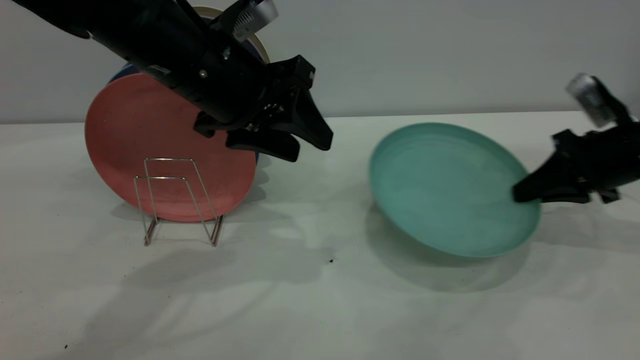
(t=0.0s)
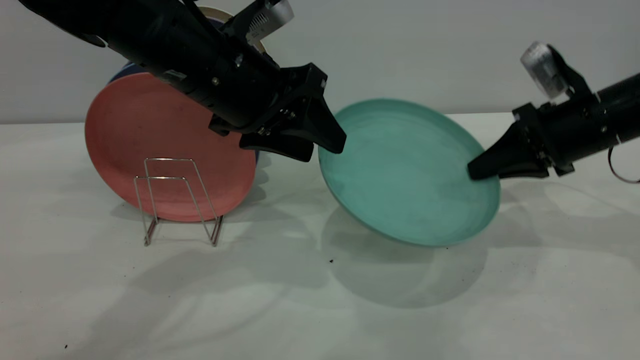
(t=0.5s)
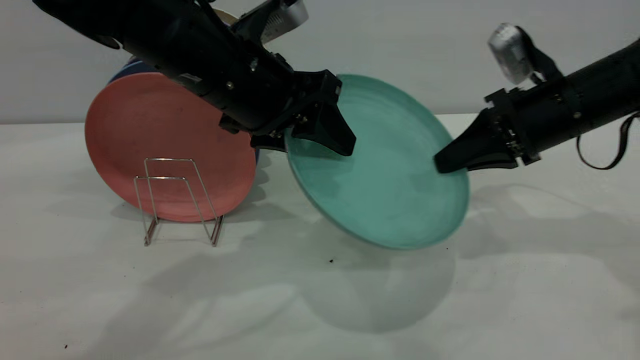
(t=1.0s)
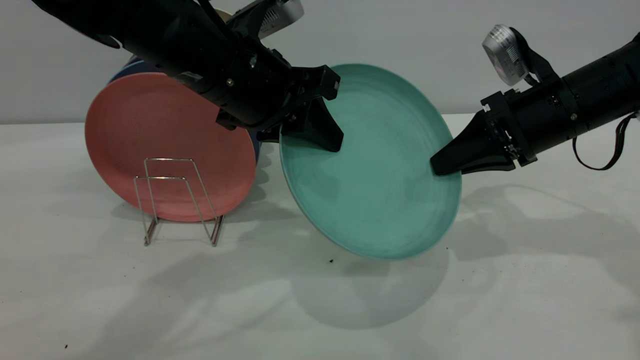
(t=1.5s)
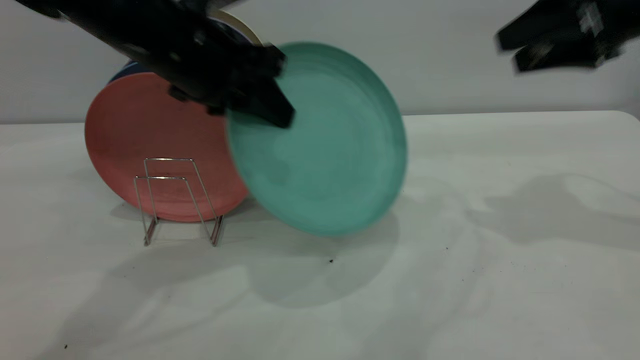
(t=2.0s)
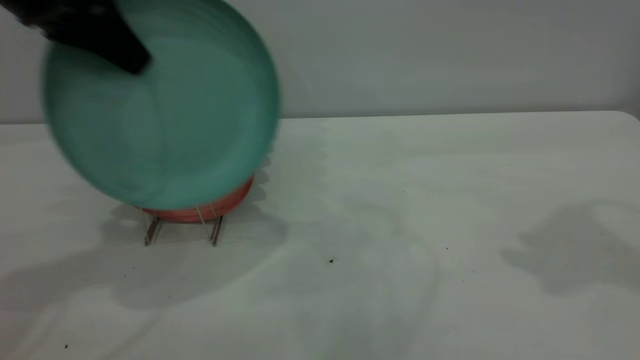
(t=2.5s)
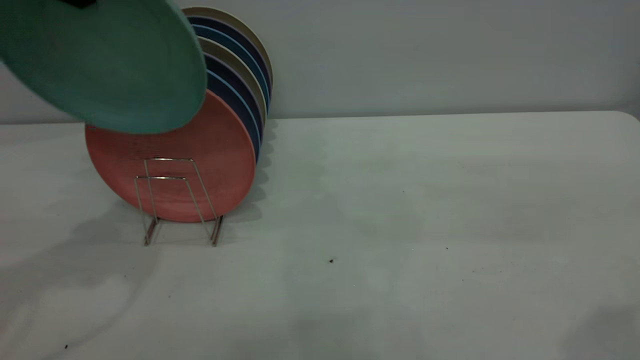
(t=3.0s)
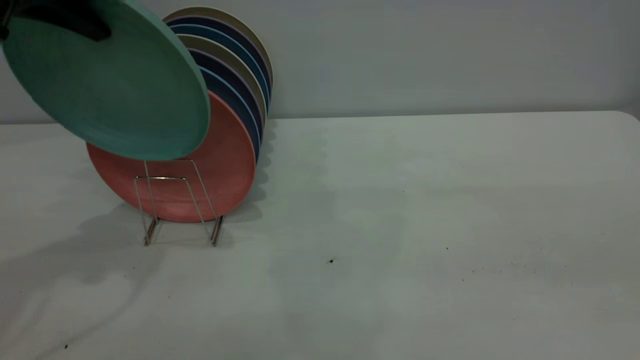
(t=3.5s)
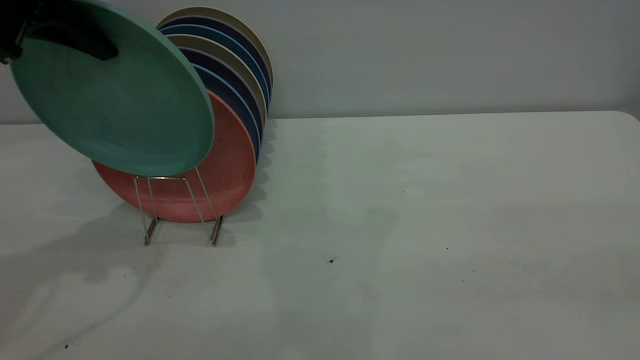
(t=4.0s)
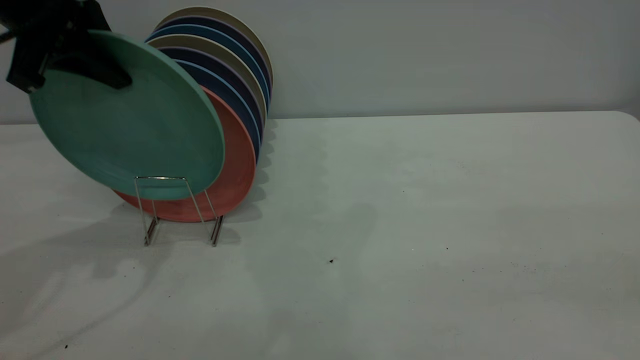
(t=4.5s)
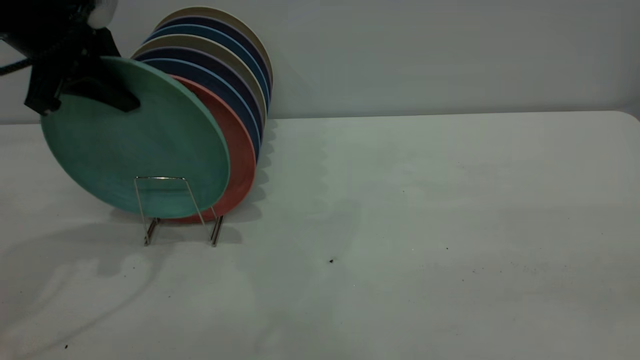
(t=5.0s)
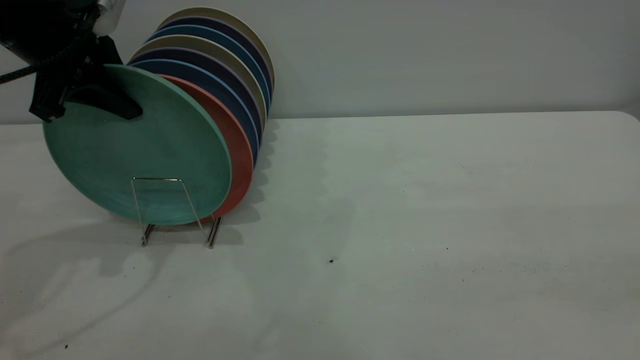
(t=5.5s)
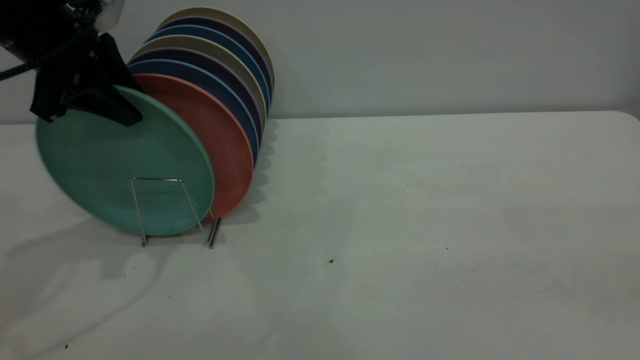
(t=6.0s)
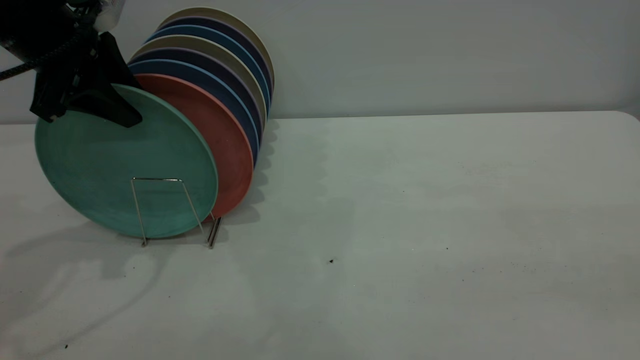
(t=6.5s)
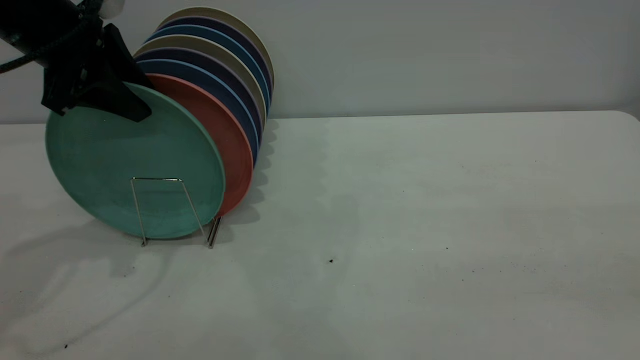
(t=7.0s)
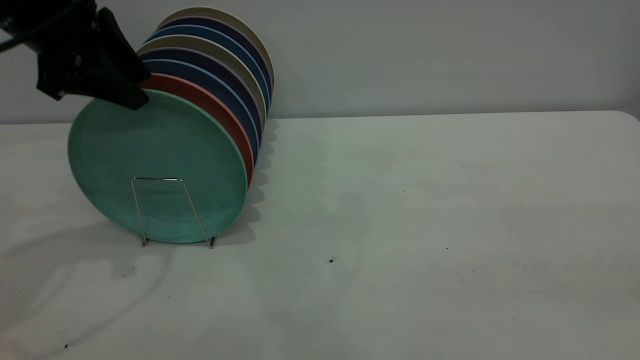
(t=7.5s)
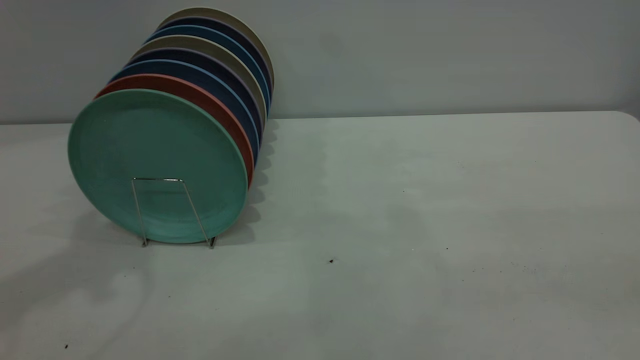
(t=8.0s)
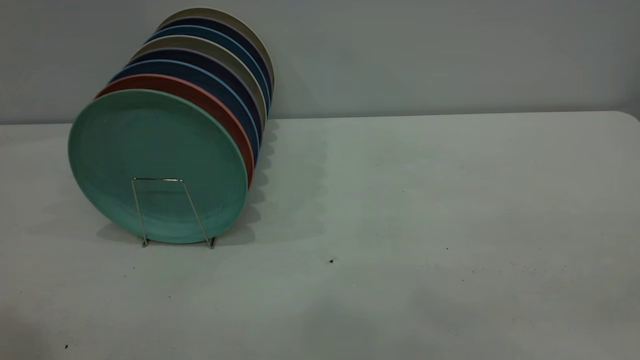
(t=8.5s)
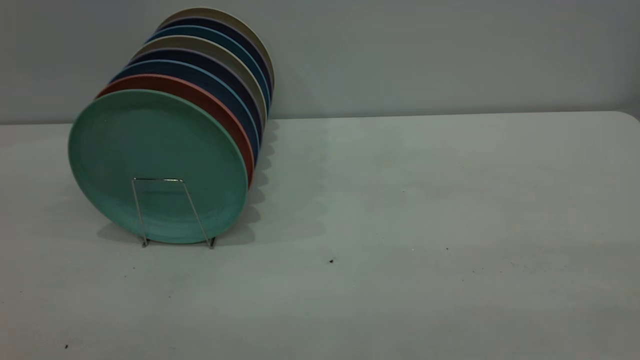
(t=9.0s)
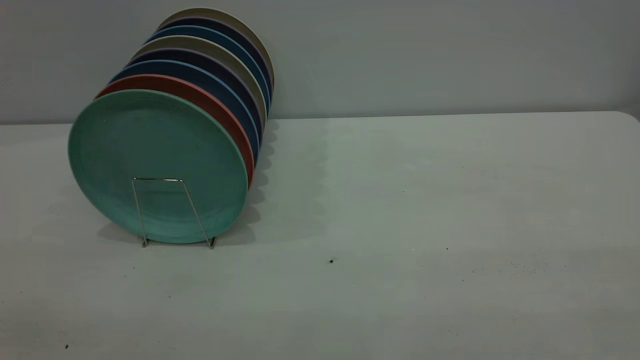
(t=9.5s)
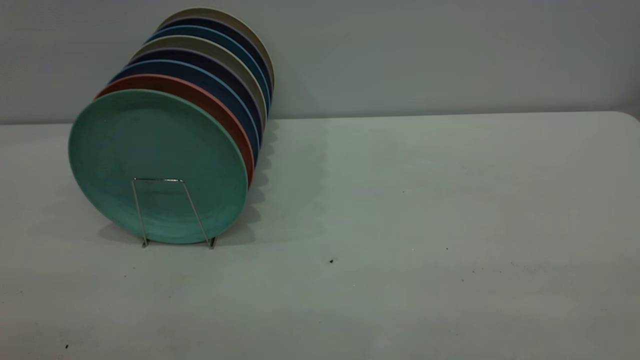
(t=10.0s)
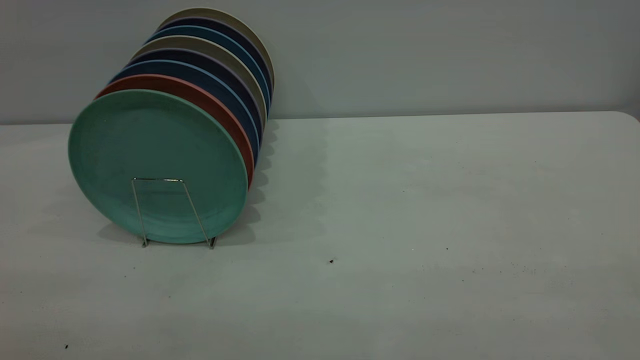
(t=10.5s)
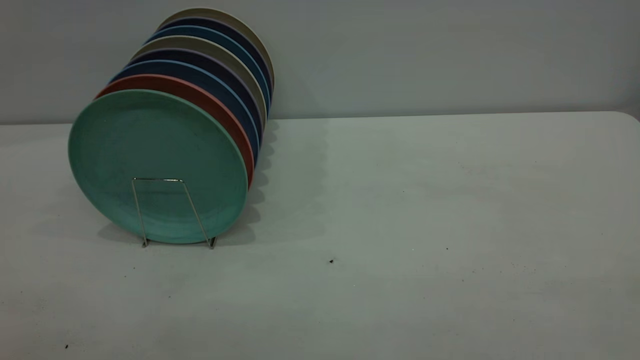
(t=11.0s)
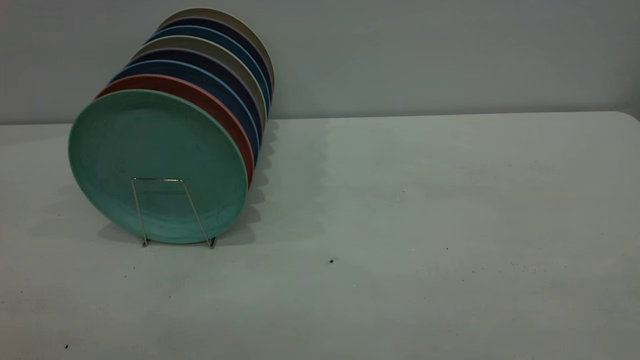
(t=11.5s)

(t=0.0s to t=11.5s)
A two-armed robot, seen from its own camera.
Task of the whole recording: the right gripper grasp the green plate, the right gripper pass the green plate to the left gripper, and the left gripper place the green plate on the plate rack.
Step, t=0.0s - t=2.0s: Pass the plate from the right gripper to the left gripper.
Step, t=2.5s - t=7.5s: Place the plate on the shelf.
t=0.0s - t=2.0s: The right gripper moves upward, about 15 cm, and opens its fingers, while the left gripper closes.
t=2.0s - t=4.0s: The right gripper heads backward, covering some 35 cm. Meanwhile the left gripper heads to the left and upward, covering roughly 15 cm.
t=4.0s - t=6.0s: The left gripper heads downward, covering some 5 cm, and opens.
t=6.0s - t=7.5s: The left gripper opens its fingers.
t=7.5s - t=9.5s: The left gripper goes roughly 35 cm backward.

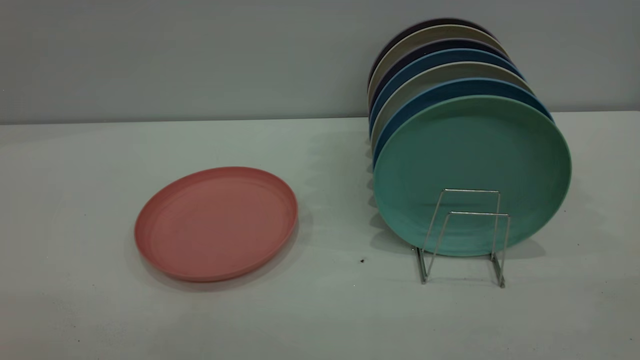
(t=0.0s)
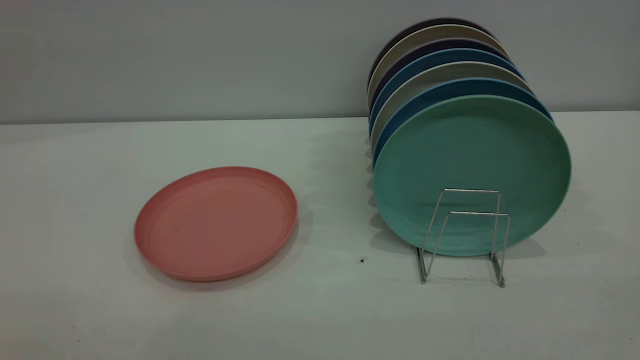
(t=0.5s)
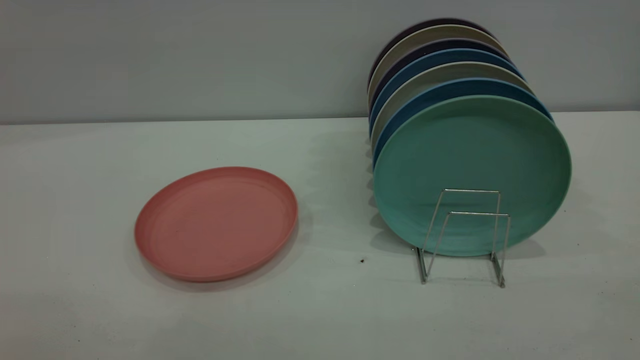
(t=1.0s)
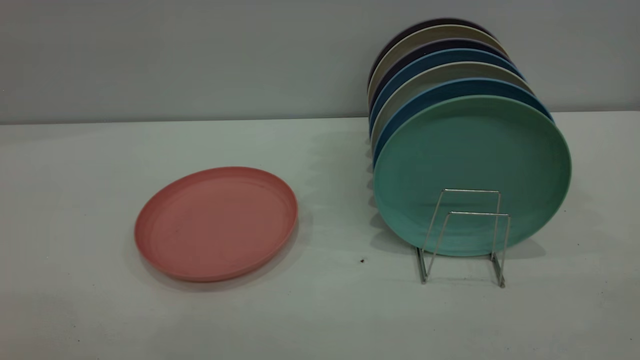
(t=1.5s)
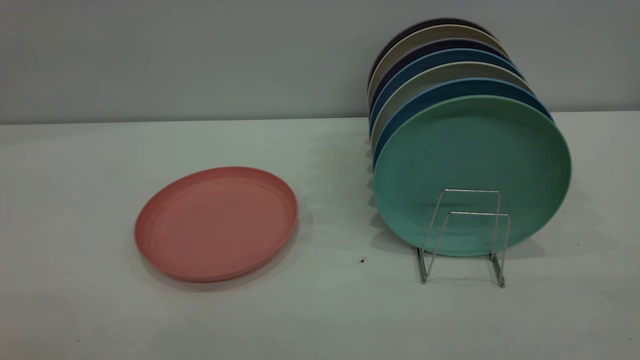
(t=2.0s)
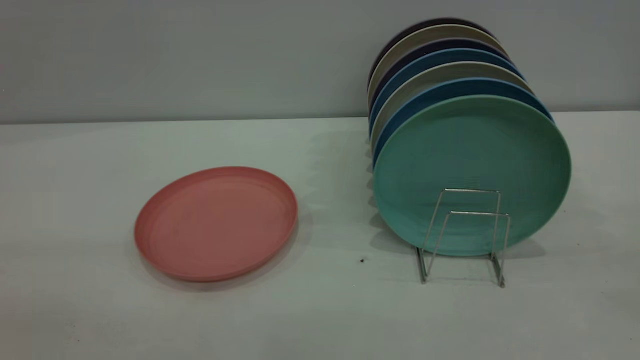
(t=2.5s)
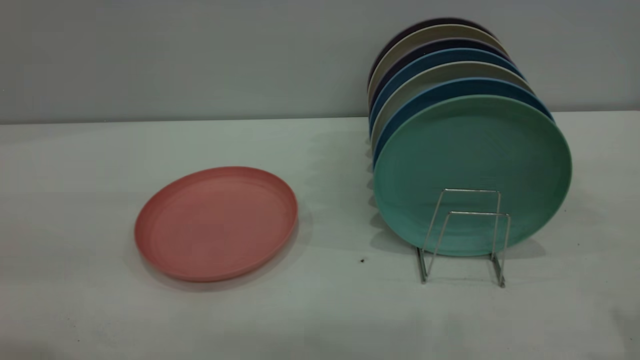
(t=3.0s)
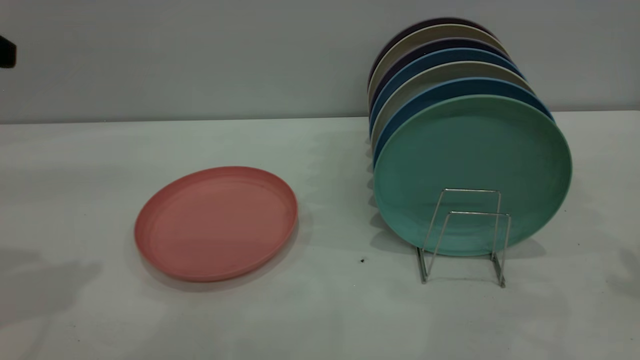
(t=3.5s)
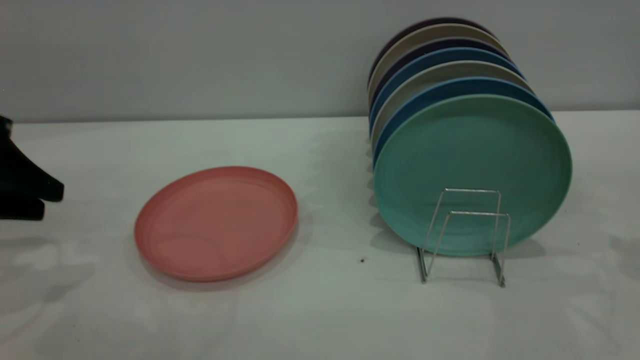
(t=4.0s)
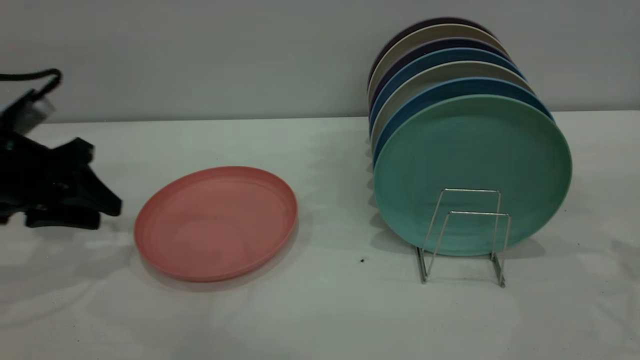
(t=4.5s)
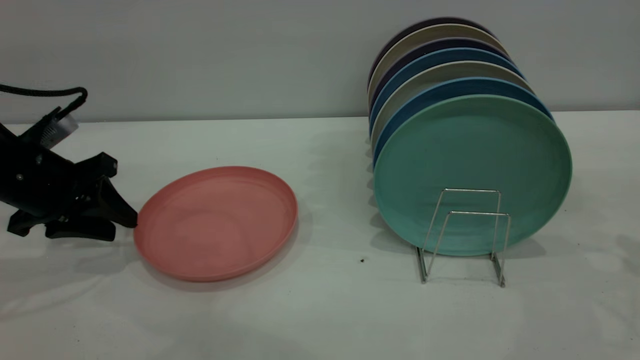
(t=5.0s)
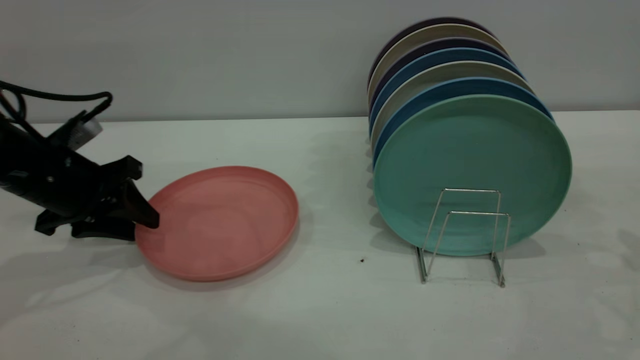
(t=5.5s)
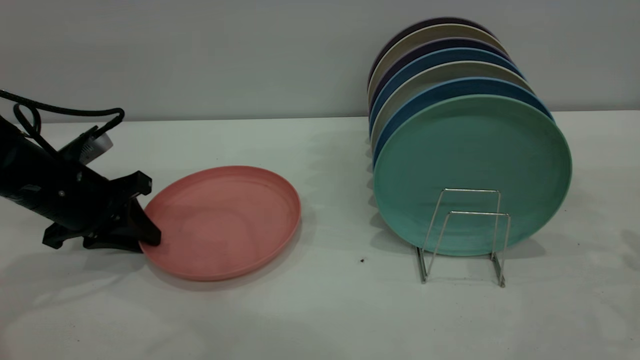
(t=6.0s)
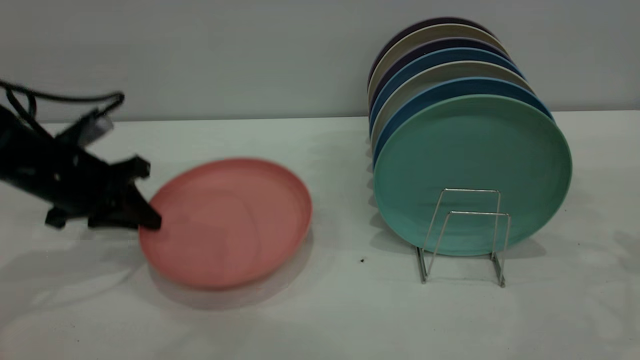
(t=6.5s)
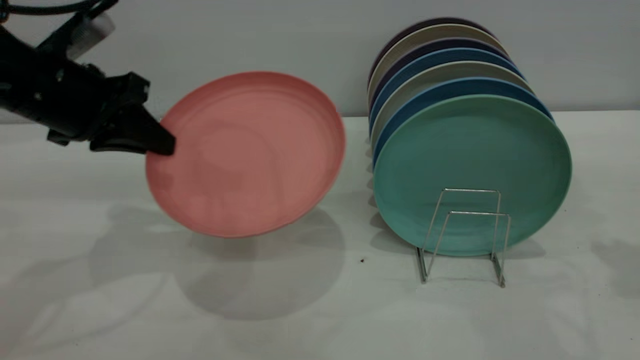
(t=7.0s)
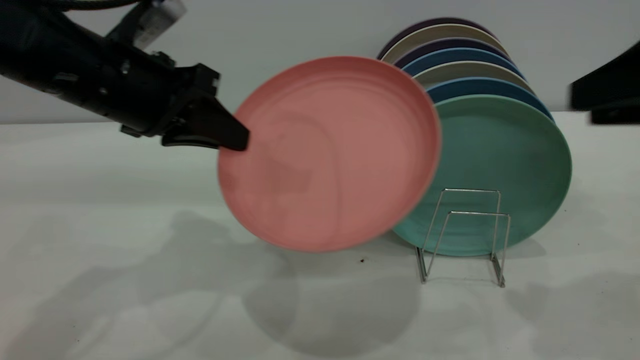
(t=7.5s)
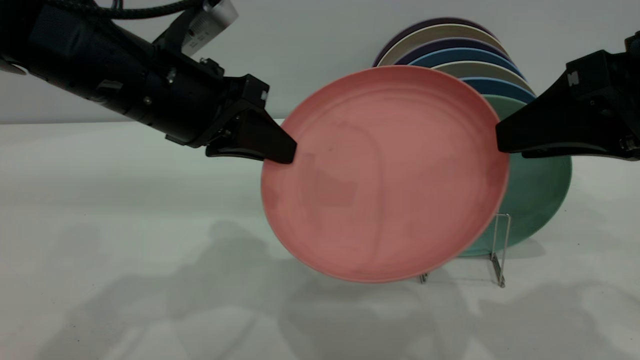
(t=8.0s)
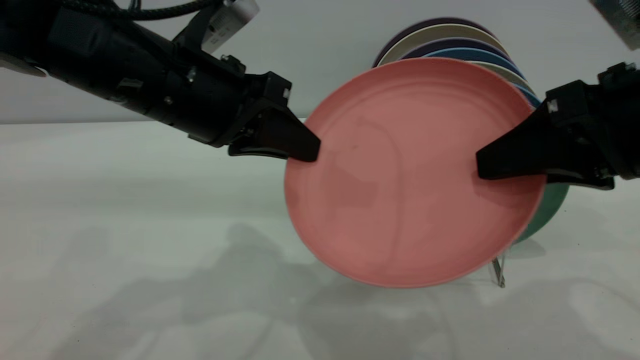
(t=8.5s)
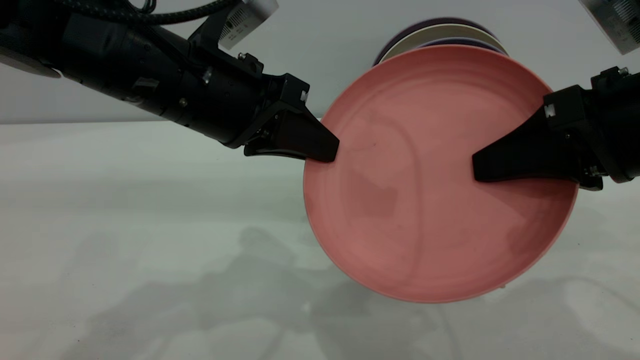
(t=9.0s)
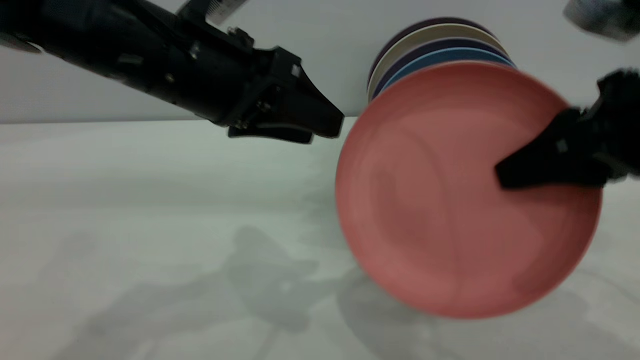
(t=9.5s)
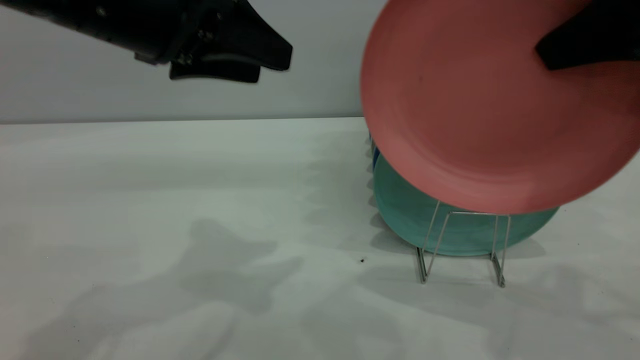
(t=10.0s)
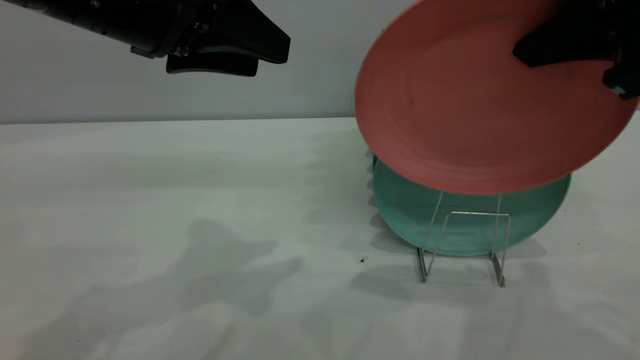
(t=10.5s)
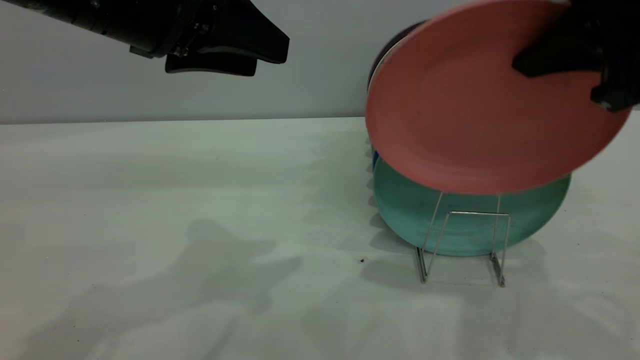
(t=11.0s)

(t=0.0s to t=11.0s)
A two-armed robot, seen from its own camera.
Task of the whole recording: put the plate on the plate rack.
Step, t=0.0s - t=6.5s: Pick up the plate with the left gripper.
Step, t=7.0s - t=9.5s: Pass the plate from the left gripper to the right gripper.
t=3.5s - t=5.5s: The left gripper heads downward and forward, covering roughly 20 cm.
t=5.5s - t=7.5s: The left gripper is displaced to the right and upward by some 15 cm, and closes its fingers. The right gripper goes about 15 cm to the left and backward.
t=7.5s - t=9.0s: The left gripper is displaced to the right by approximately 5 cm, while the right gripper moves some 5 cm, and closes its fingers.
t=9.0s - t=11.0s: Both grippers move upward, roughly 10 cm. The left gripper opens.
